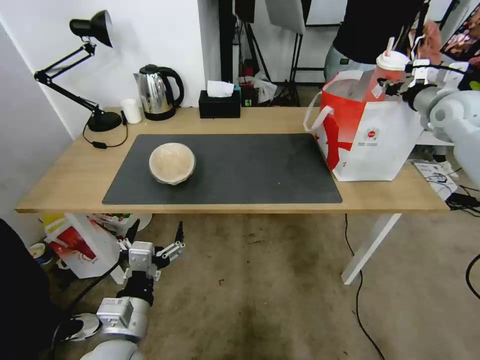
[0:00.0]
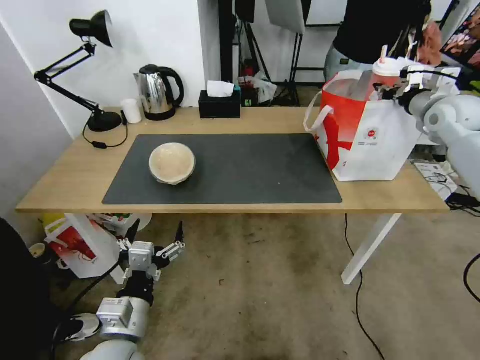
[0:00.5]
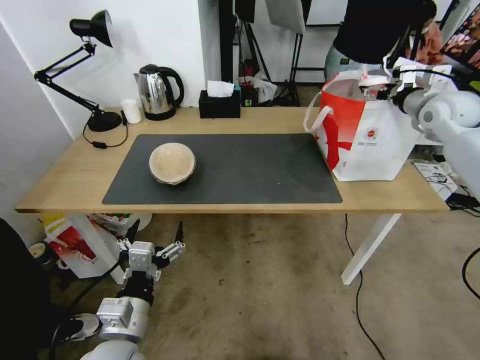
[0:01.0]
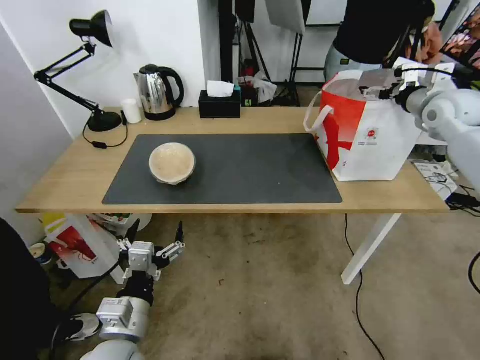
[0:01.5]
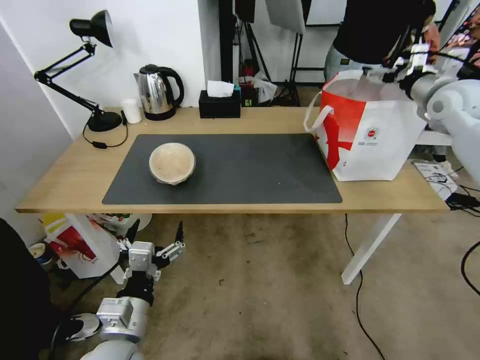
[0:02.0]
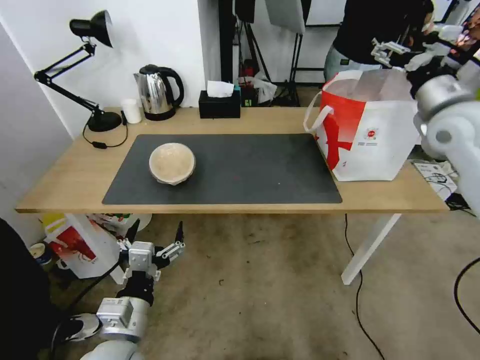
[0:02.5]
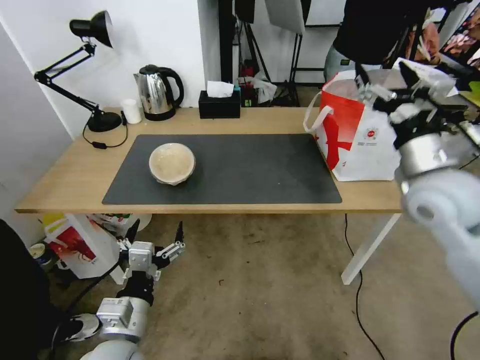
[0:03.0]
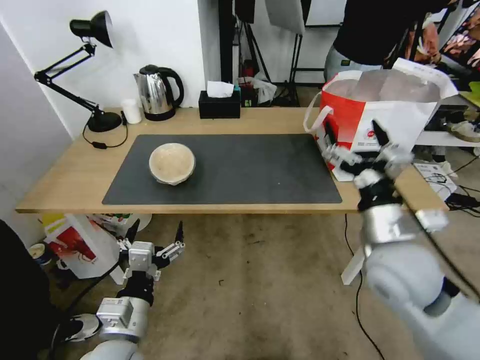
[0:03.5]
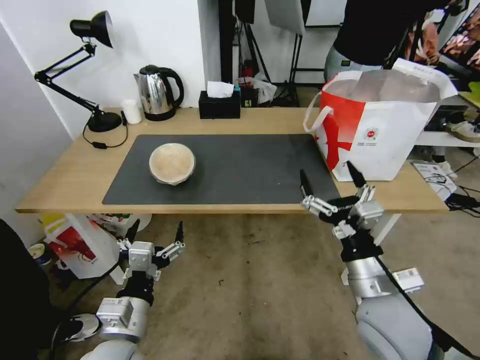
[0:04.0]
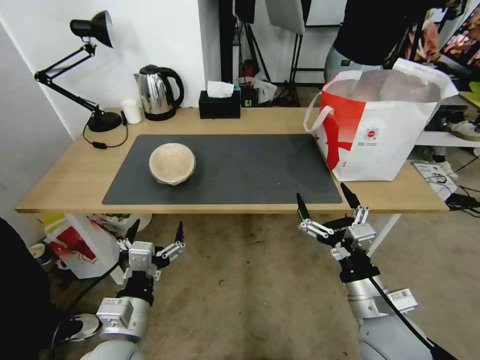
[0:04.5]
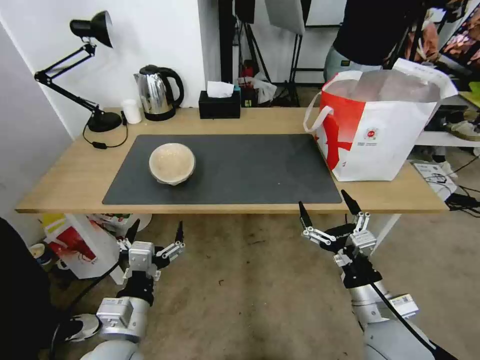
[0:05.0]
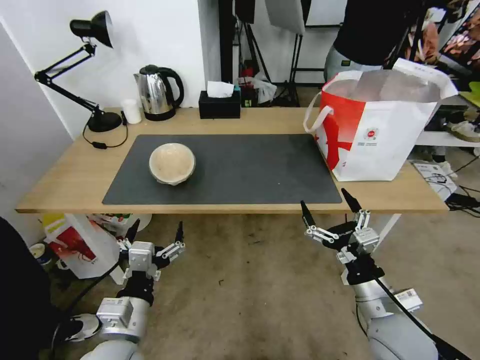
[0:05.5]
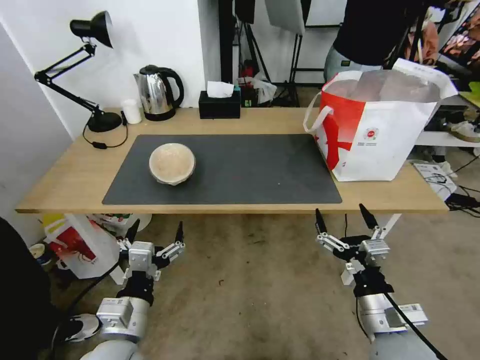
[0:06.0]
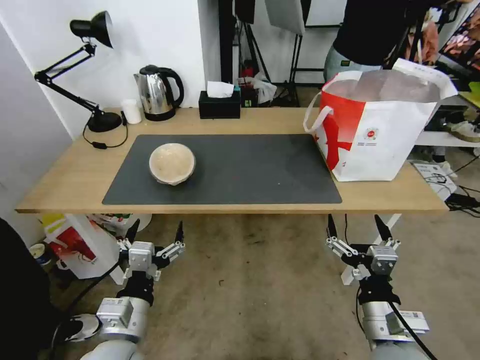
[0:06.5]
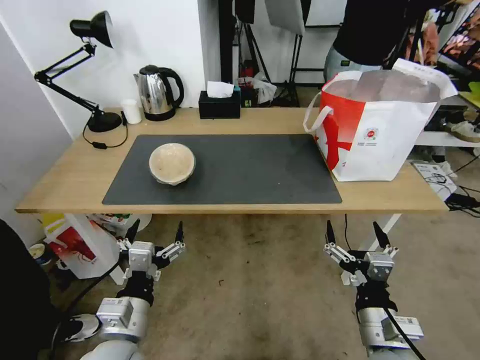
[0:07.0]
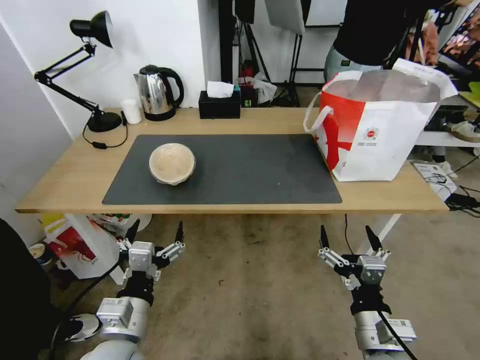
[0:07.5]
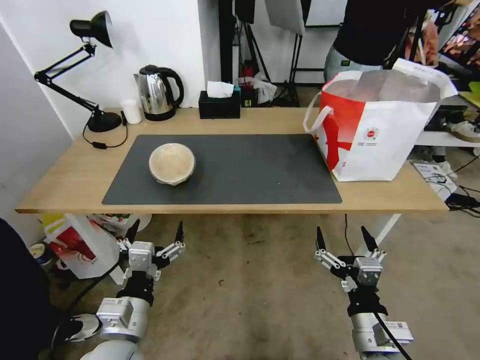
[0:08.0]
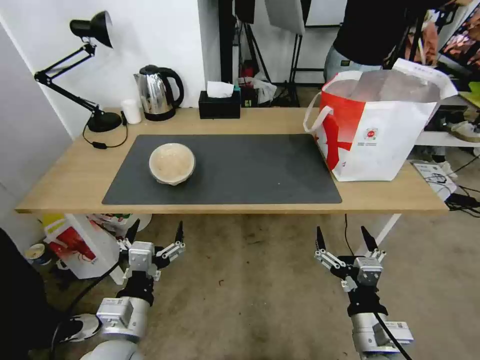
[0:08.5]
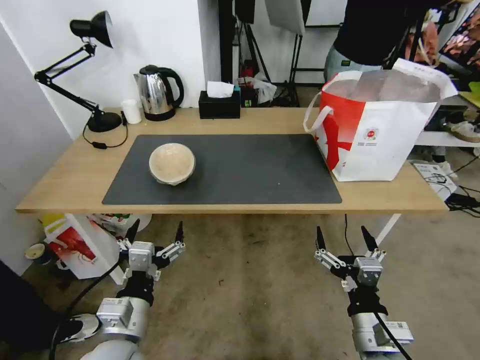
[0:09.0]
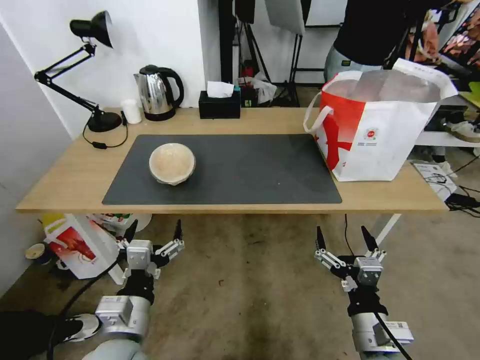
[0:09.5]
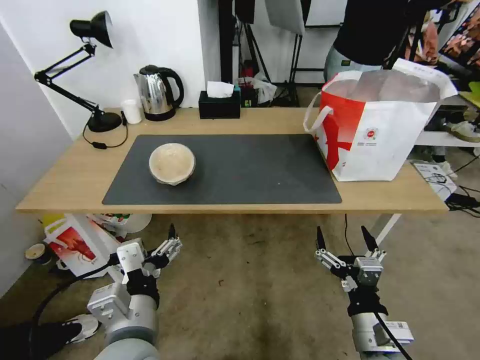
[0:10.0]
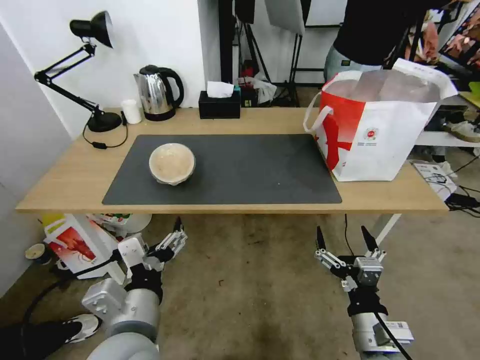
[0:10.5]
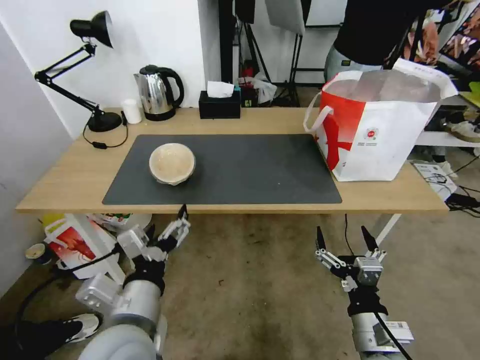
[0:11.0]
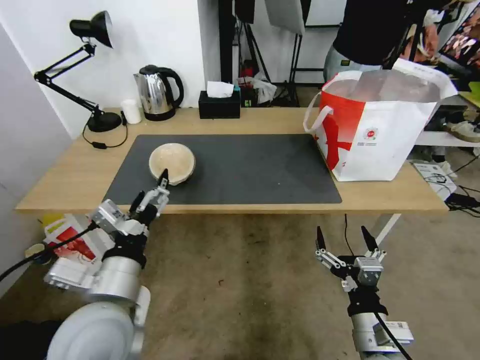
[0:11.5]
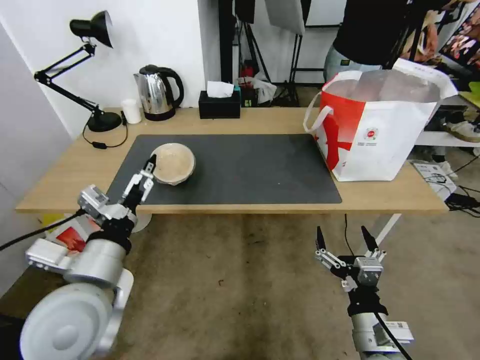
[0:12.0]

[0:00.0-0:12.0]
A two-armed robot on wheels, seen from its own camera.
Task of the whole recording: Pick up the trash from the table and place it into the takeout bag.
0:00.0 to 0:02.0: The right gripper opens its fingers.
0:02.0 to 0:04.0: The right gripper heads backward, to the left and downward, covering some 50 cm.
0:04.0 to 0:06.0: The right gripper is displaced downward by some 5 cm.
0:06.0 to 0:08.0: The grippers stay close to where they were, moving slightly.
0:08.0 to 0:10.0: The left gripper shifts roughly 10 cm upward and to the right.
0:10.0 to 0:12.0: The left gripper moves to the left and forward, approximately 10 cm.

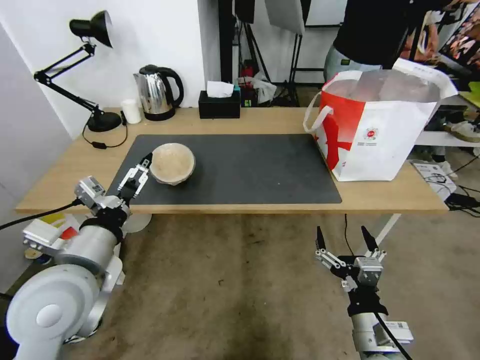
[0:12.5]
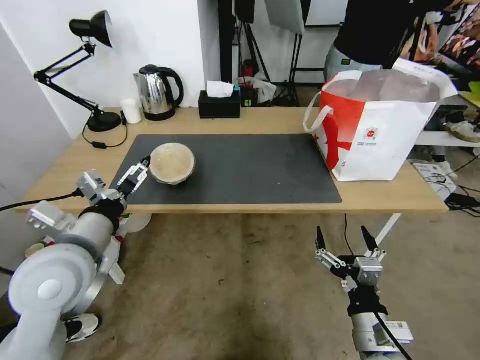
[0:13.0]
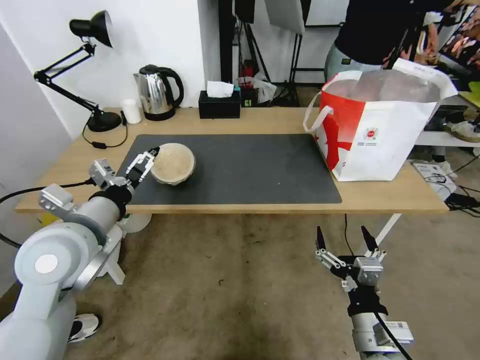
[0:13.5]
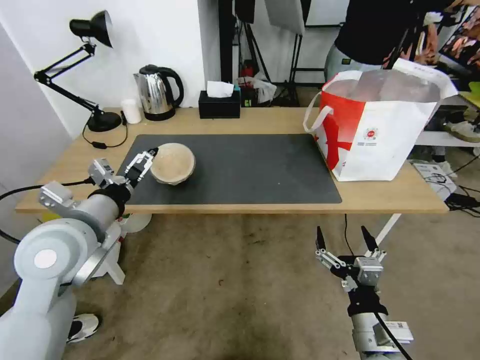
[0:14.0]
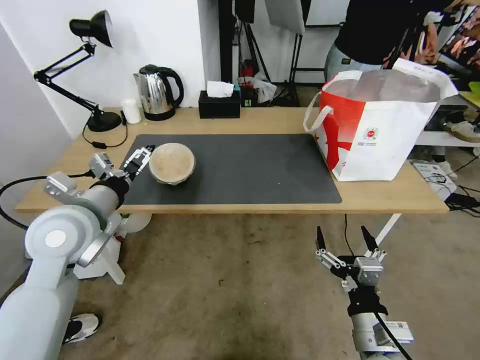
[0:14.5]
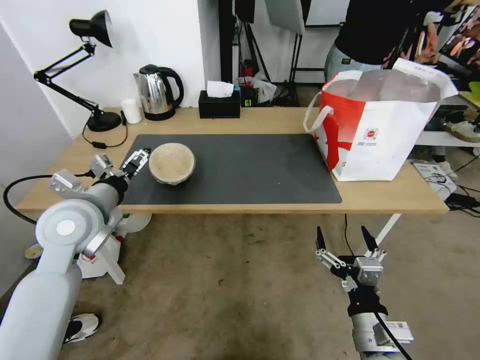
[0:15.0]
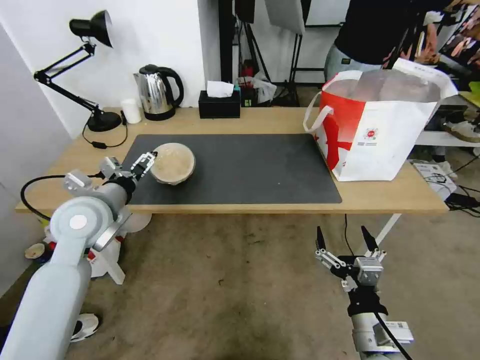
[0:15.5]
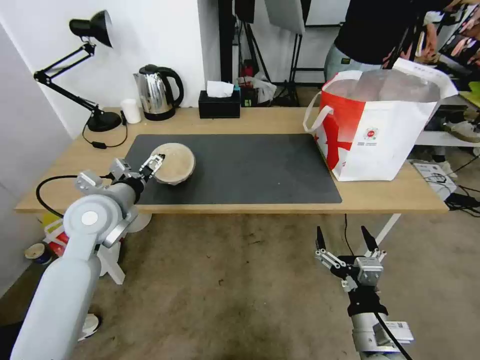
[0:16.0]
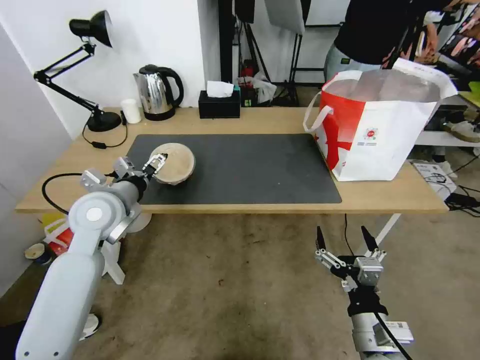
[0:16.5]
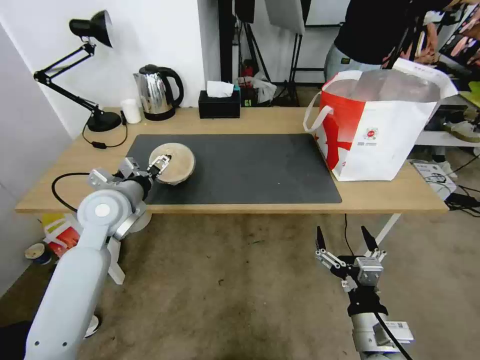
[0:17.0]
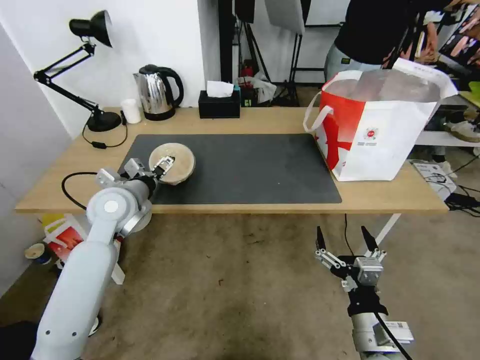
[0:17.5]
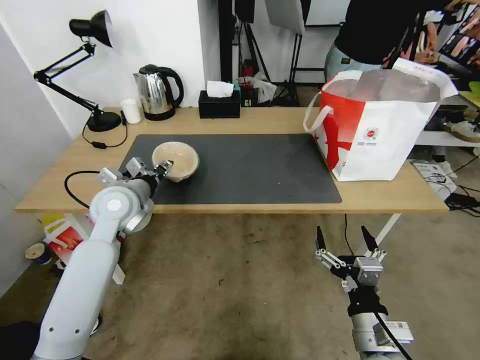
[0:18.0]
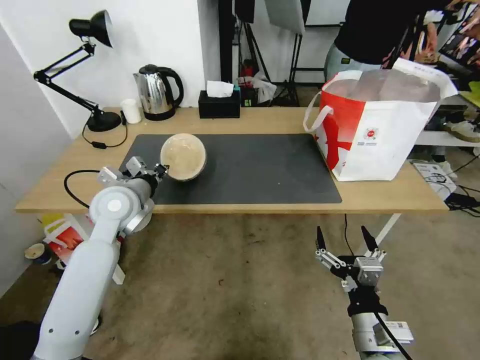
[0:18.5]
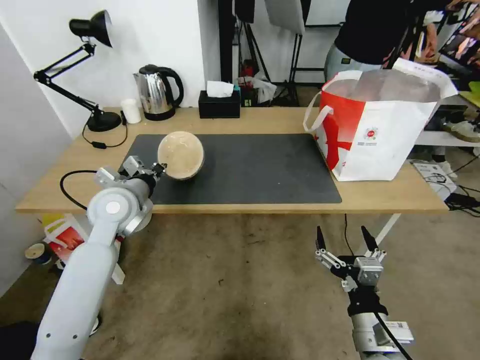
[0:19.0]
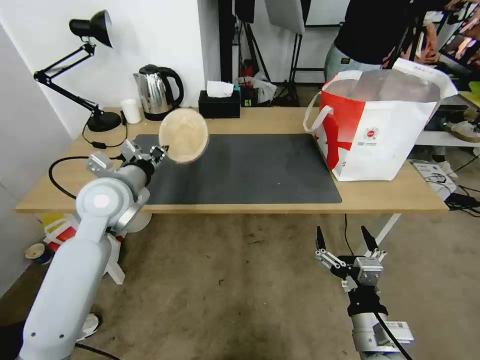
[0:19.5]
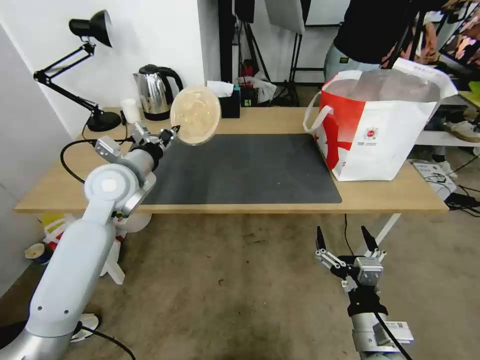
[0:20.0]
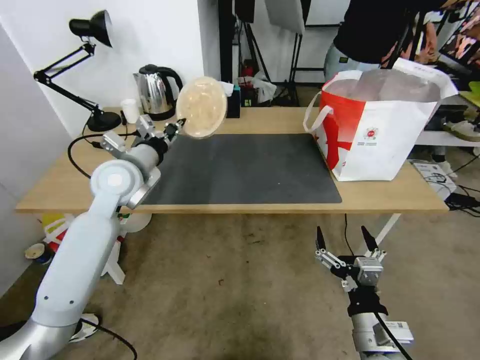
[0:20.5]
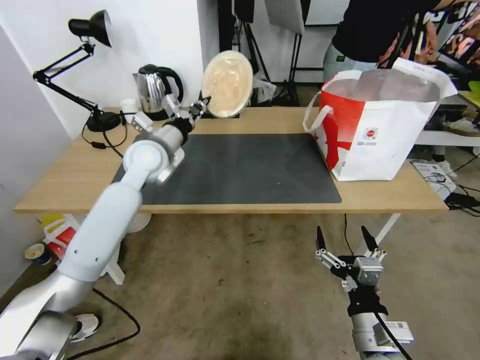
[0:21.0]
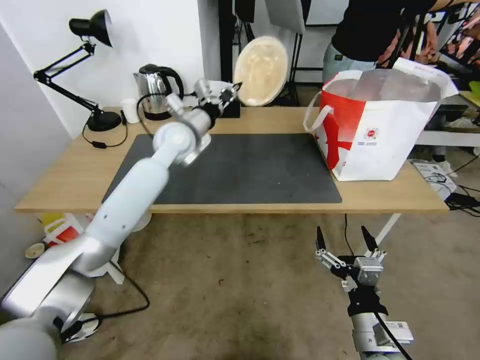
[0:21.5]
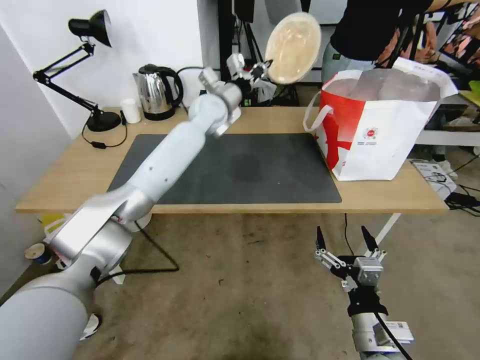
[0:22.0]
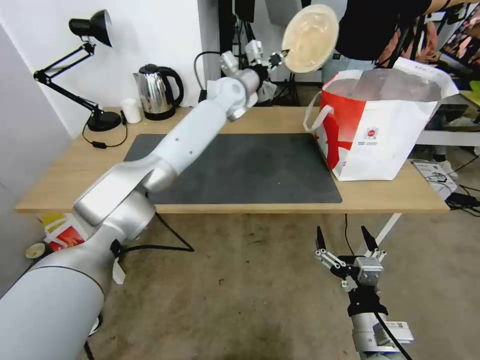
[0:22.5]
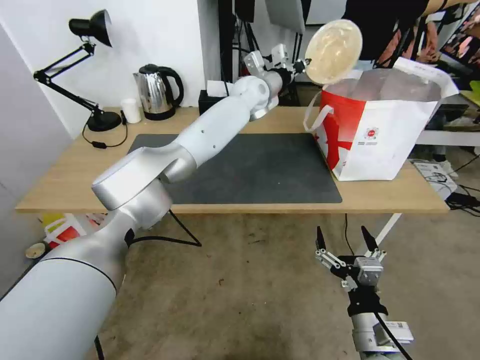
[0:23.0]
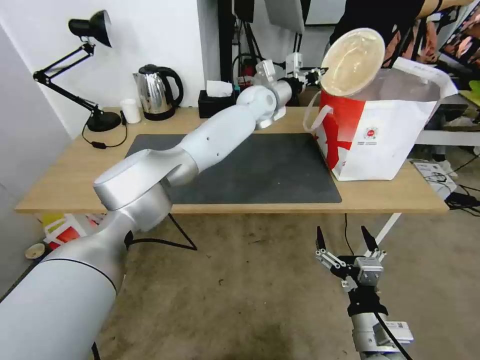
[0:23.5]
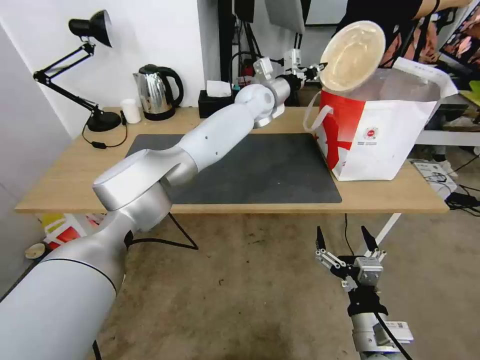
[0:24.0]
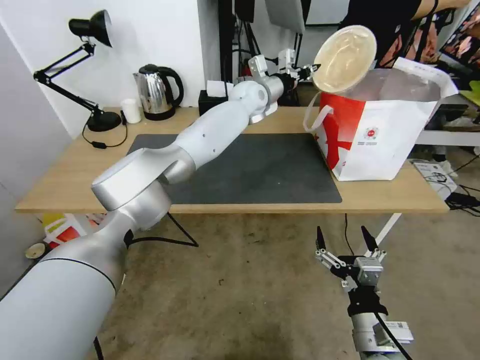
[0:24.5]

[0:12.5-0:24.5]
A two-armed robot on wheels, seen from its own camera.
Task of the whole recording: Pick up the trash from the table and place it into the takeout bag.
0:12.5 to 0:14.5: The left gripper heads forward, covering roughly 10 cm.
0:14.5 to 0:16.5: The left gripper is displaced forward by about 10 cm.
0:16.5 to 0:18.5: The left gripper closes.
0:18.5 to 0:20.5: The left gripper moves upward, some 5 cm.
0:20.5 to 0:22.5: The left gripper goes approximately 30 cm forward and to the right.

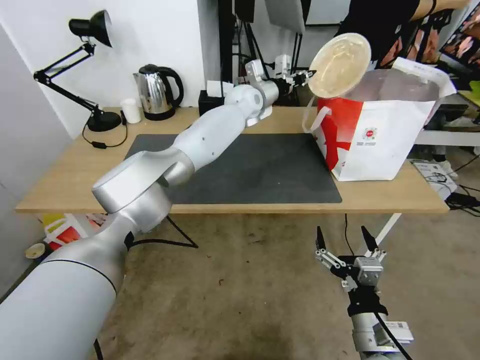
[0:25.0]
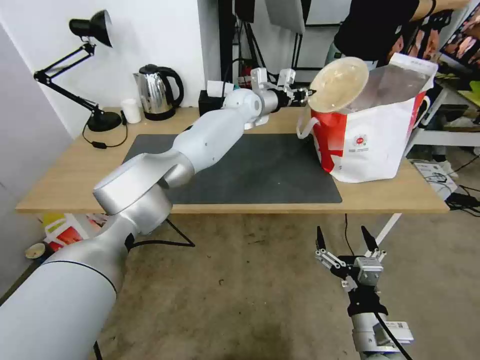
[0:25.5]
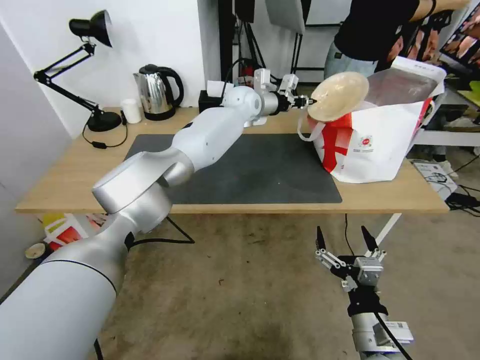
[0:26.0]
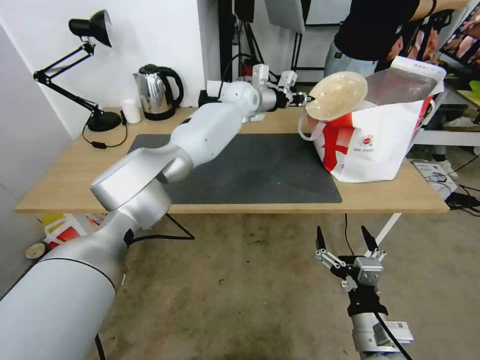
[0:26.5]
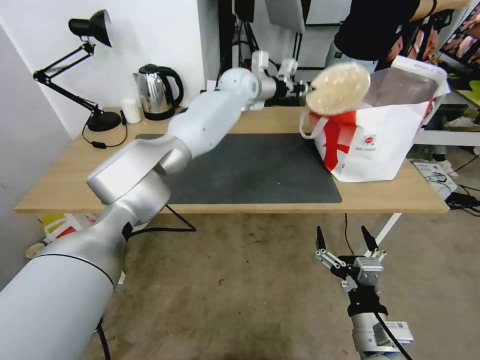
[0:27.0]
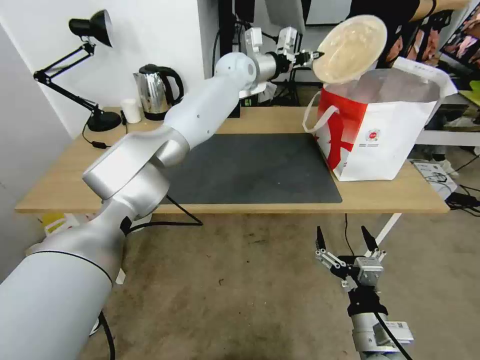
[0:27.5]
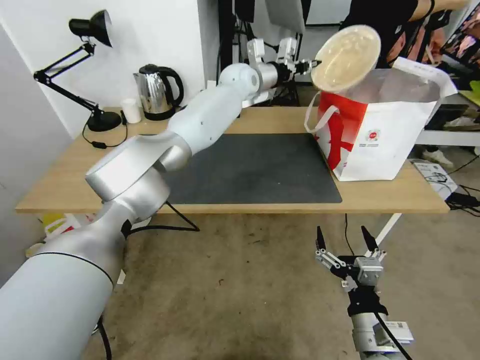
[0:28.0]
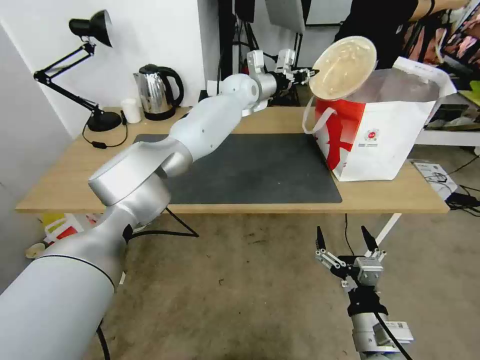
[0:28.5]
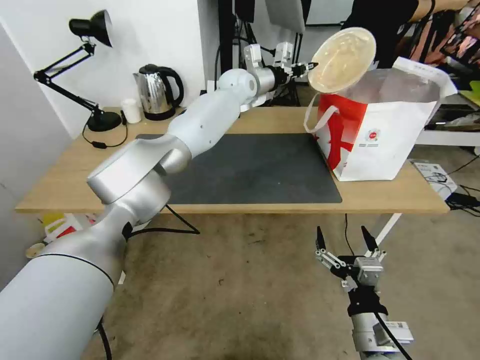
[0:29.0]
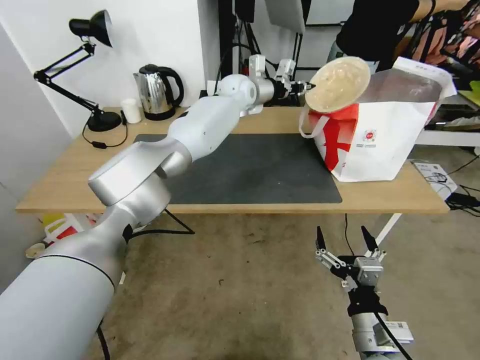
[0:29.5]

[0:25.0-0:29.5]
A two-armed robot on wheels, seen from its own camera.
Task of the whole recording: Pick up the trash from the table and place it into the takeout bag.
0:27.0 to 0:29.5: The grippers stay close to where they were, moving slightly.
